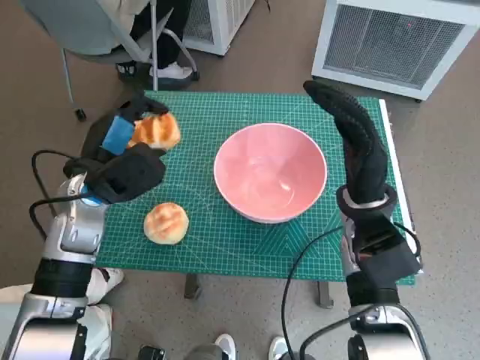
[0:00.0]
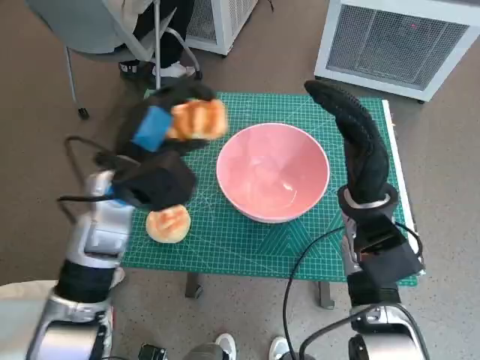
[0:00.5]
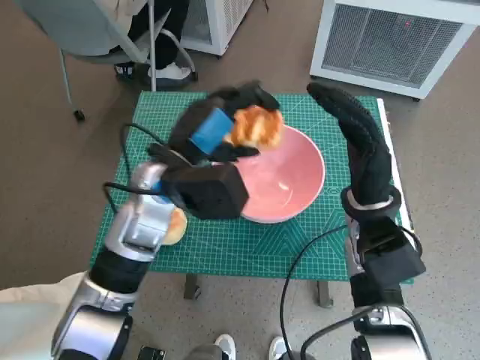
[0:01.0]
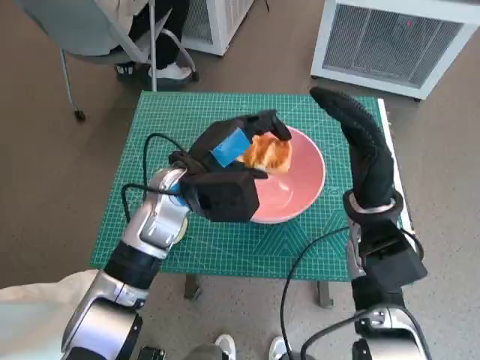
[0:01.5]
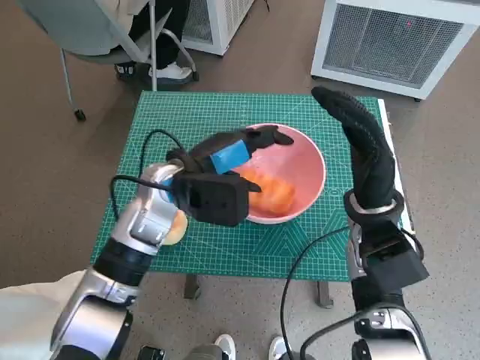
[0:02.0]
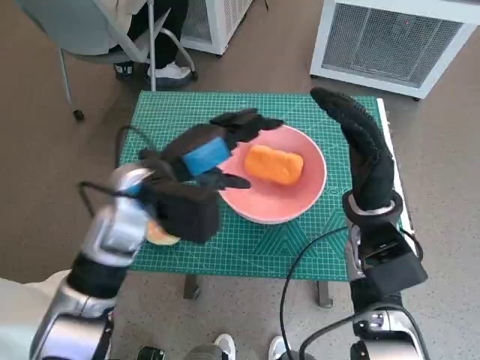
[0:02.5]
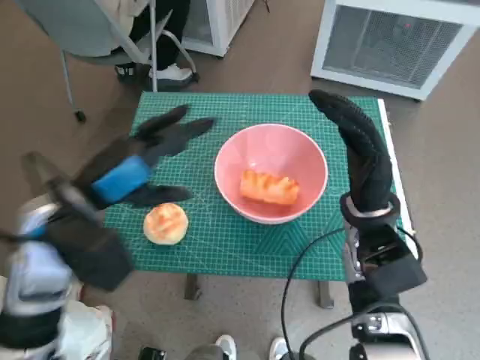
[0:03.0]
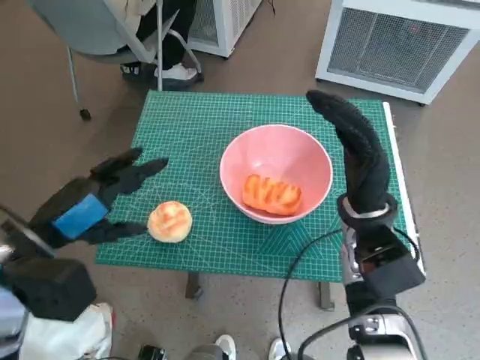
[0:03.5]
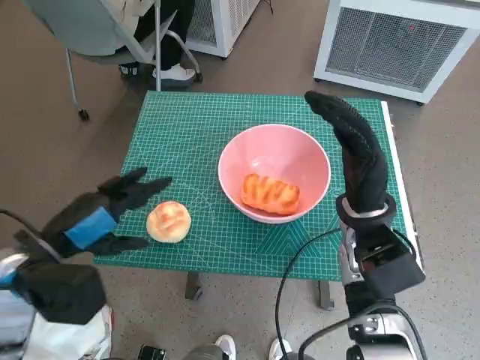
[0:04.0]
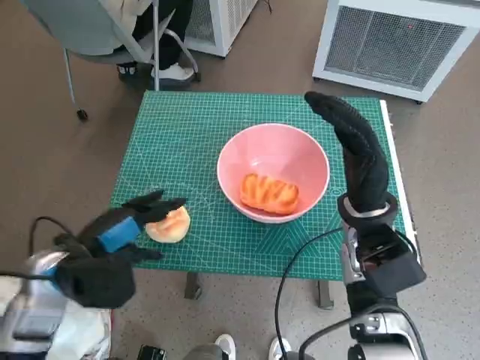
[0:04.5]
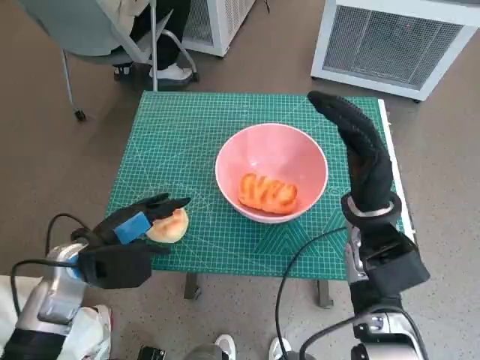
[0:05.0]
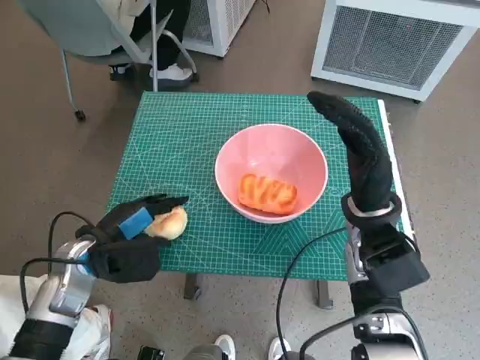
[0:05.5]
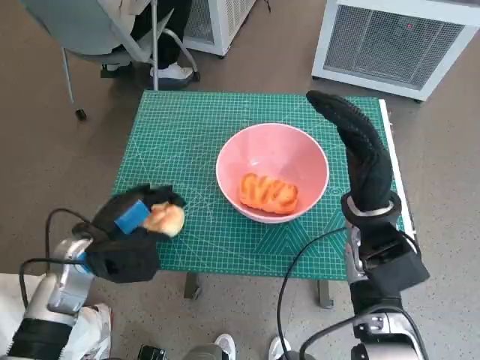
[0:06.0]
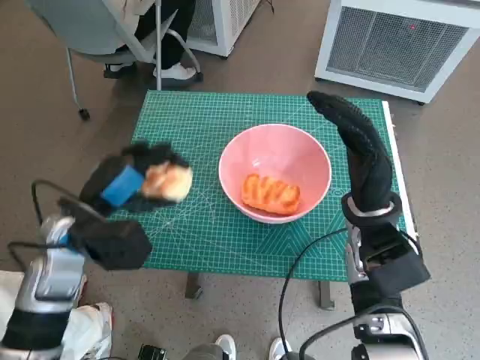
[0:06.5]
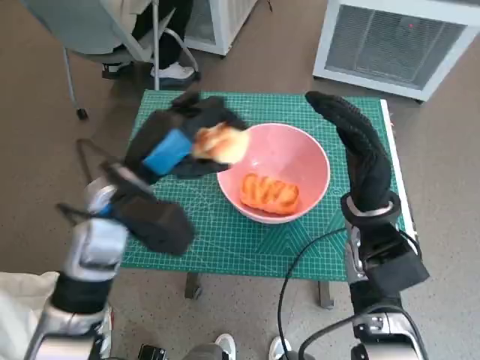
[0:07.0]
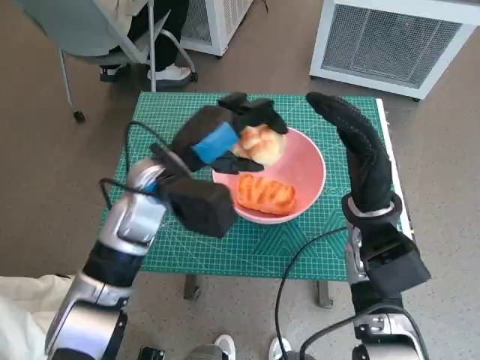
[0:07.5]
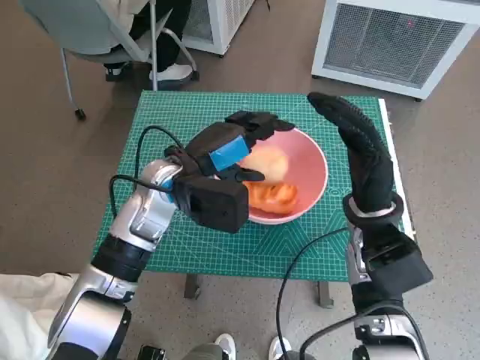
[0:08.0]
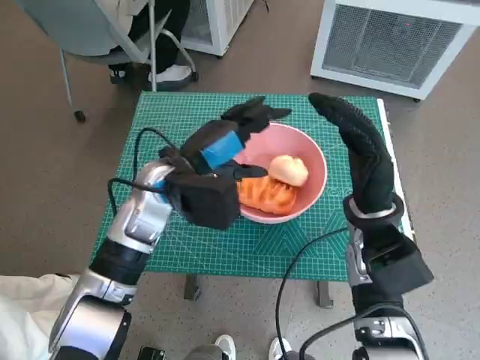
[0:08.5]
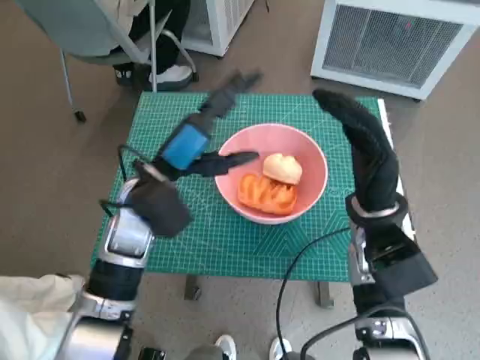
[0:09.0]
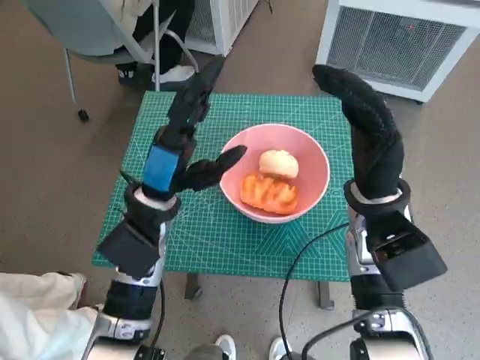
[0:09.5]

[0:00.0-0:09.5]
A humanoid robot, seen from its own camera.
Task of the whole recording: Push the bowl to the center of the table and put the bread into the bowl.
Step, 0:00.0 to 0:02.0: Place the long bread in pink bowl with left hand.
Step, 0:03.0 to 0:05.5: Grasp the round bread with left hand.
Step, 0:06.0 to 0:08.5: Place the round bread in pink bowl with left hand.
0:00.0 to 0:02.0: The left hand shifts some 10 cm to the right.
0:02.0 to 0:04.0: The left hand travels to the left and backward by roughly 20 cm.
0:04.0 to 0:05.5: The left hand shifts roughly 10 cm downward.
0:05.5 to 0:07.5: The left hand travels to the right, upward and forward by about 15 cm.

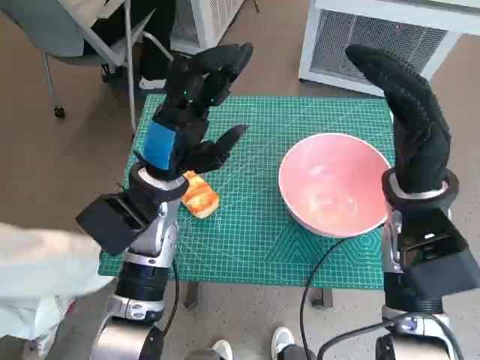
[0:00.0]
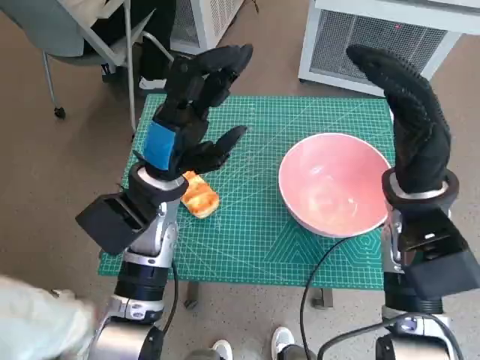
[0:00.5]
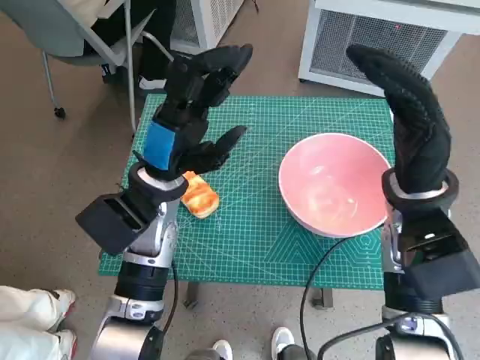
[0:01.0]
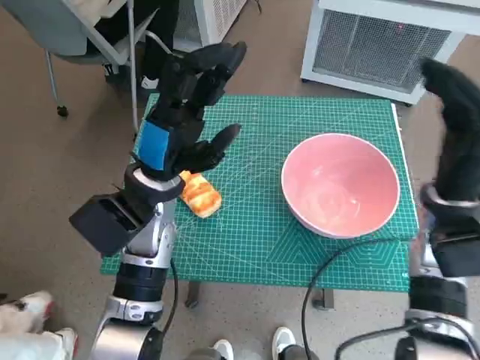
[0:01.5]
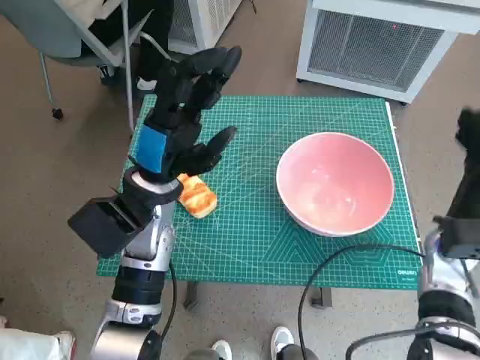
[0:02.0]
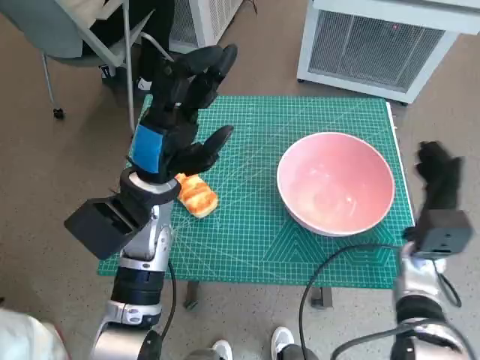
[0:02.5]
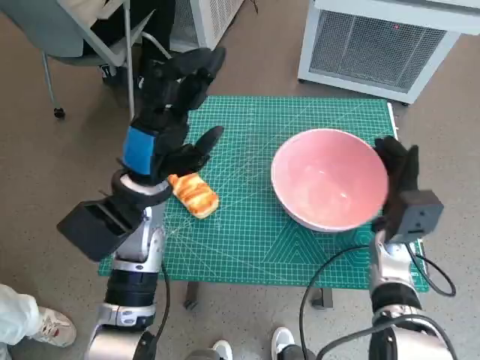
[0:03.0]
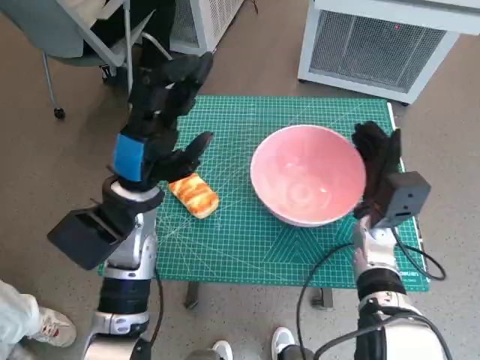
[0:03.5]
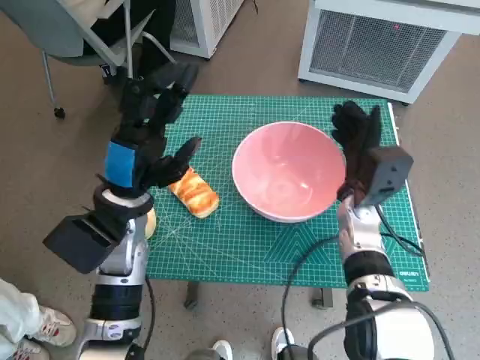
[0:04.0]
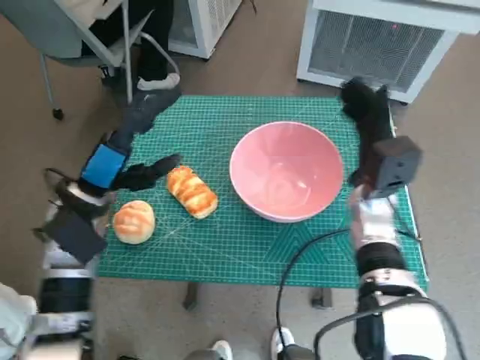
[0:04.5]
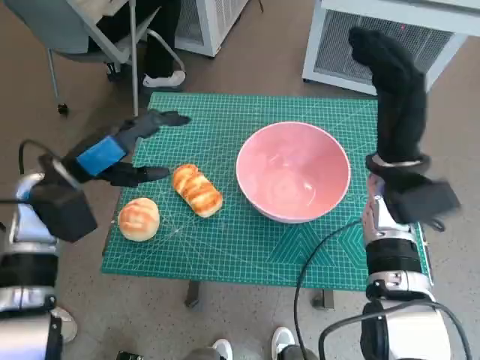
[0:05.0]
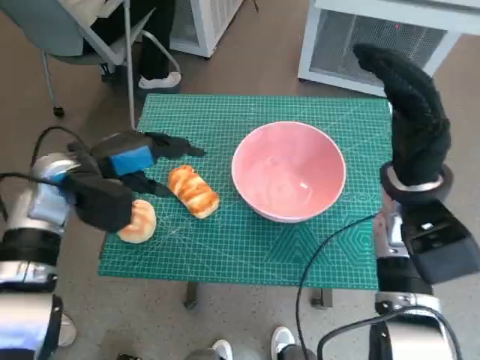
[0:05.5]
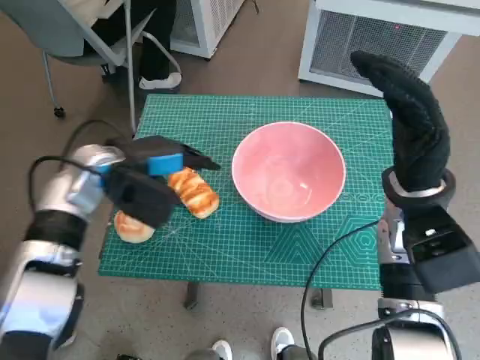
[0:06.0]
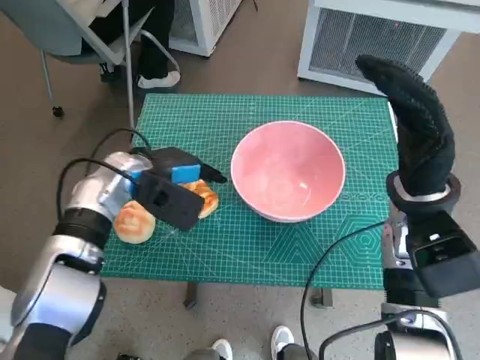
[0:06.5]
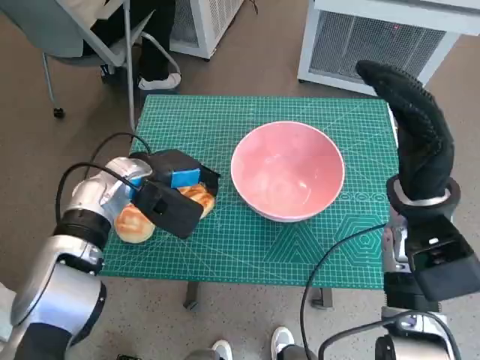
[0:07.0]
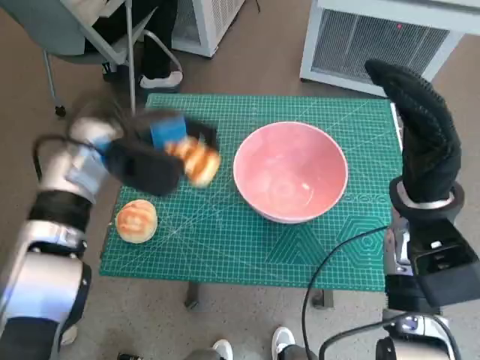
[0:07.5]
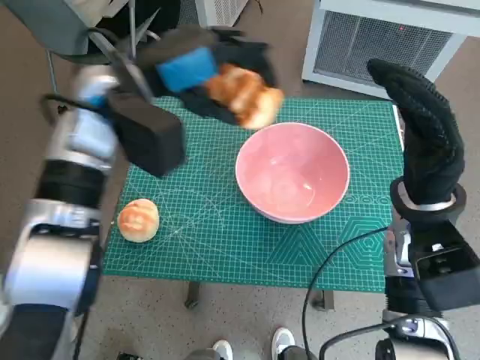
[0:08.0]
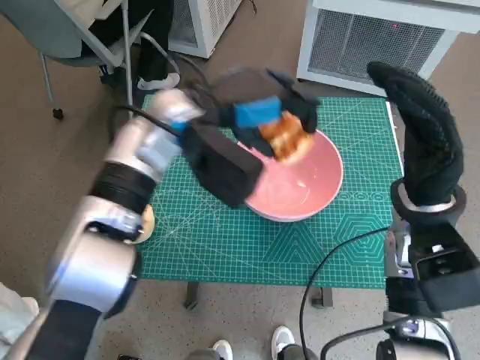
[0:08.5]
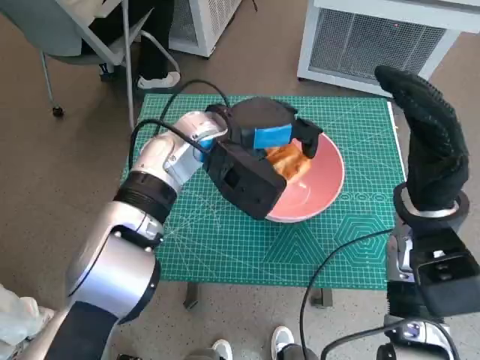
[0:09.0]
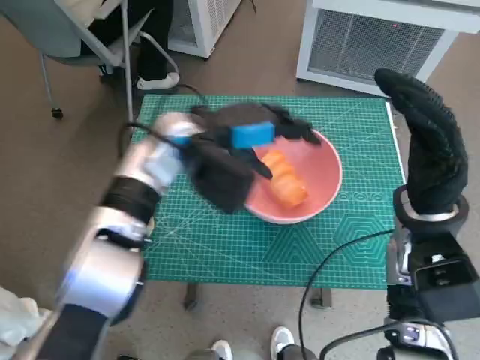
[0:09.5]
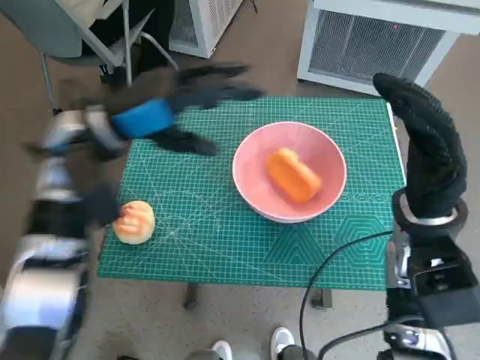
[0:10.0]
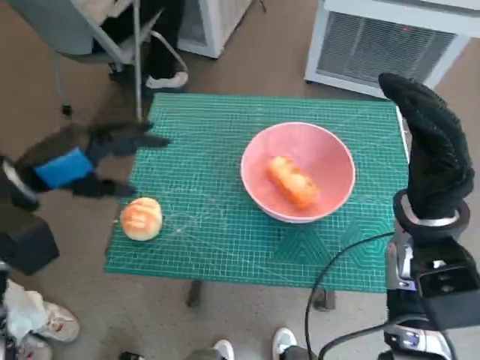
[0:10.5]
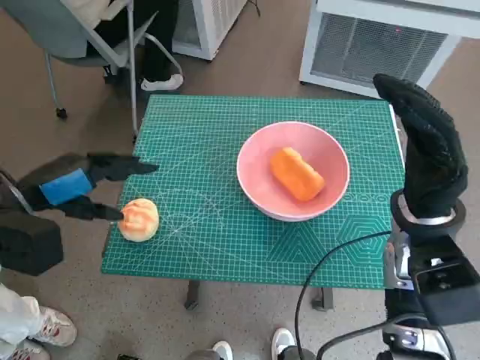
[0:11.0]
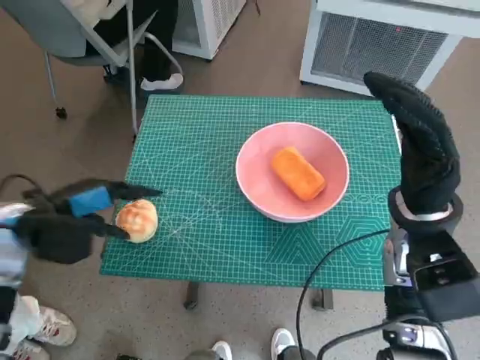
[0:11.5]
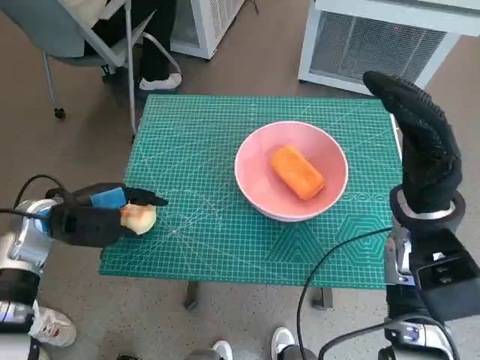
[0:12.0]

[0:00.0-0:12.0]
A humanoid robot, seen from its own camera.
Task of the whole recording: Push the bowl to the center of the table and put the bread into the bowl.
Step, 0:00.0 to 0:04.0: Move the pink bowl to the center of table with right hand.
Step, 0:04.5 to 0:07.0: Grasp the long bread with left hand.
Step, 0:07.5 to 0:09.5: Place the long bread in pink bowl with left hand.
0:02.0 to 0:04.0: The right hand heads to the left, covering roughly 10 cm.
0:04.0 to 0:06.0: The right hand moves upward, about 10 cm. The left hand heads forward, covering approximately 5 cm.
0:06.0 to 0:08.0: The left hand travels upward by approximately 10 cm.
0:08.0 to 0:10.0: The left hand reaches about 10 cm to the right, then returns.
0:10.0 to 0:12.0: The left hand shifts about 15 cm downward and to the left.

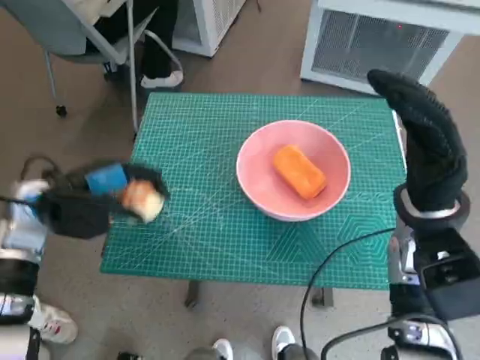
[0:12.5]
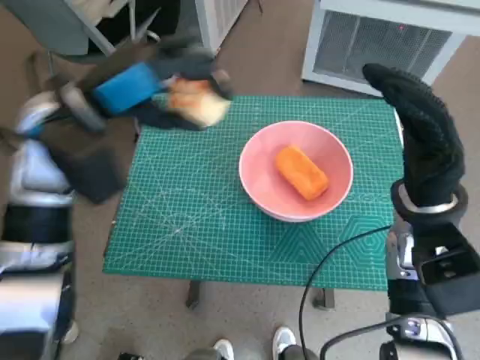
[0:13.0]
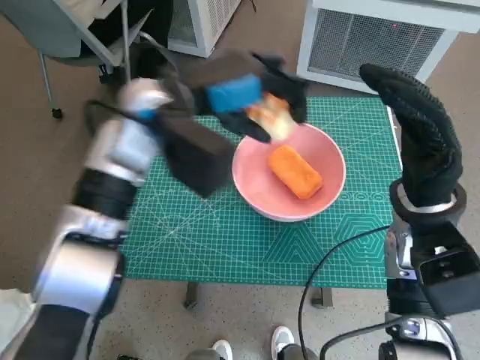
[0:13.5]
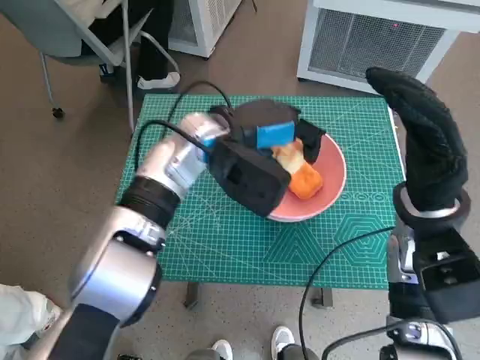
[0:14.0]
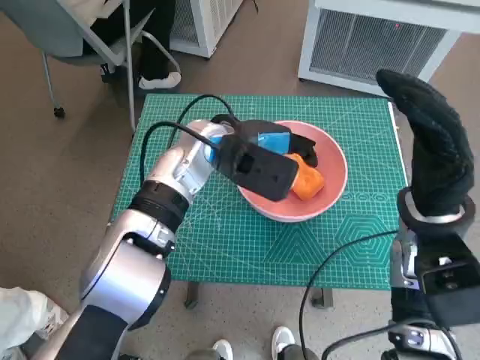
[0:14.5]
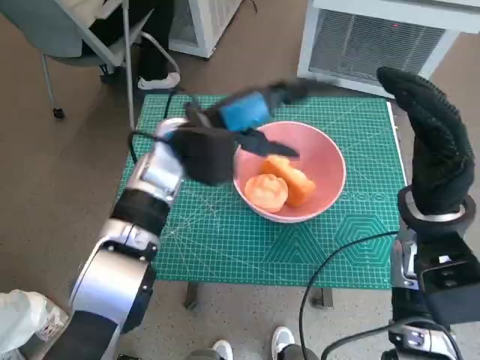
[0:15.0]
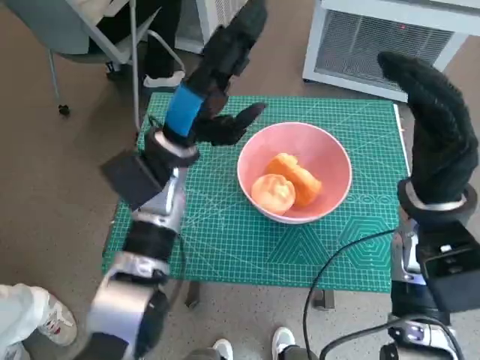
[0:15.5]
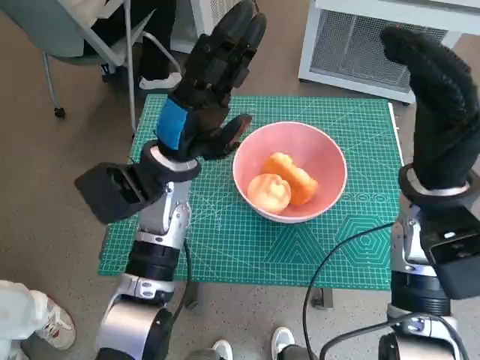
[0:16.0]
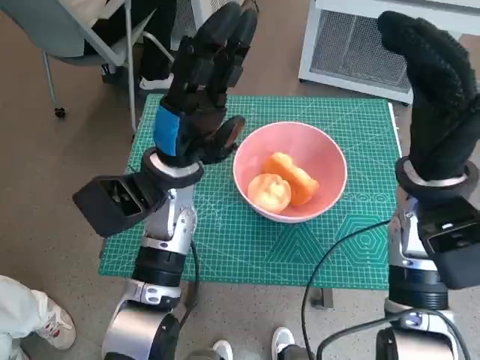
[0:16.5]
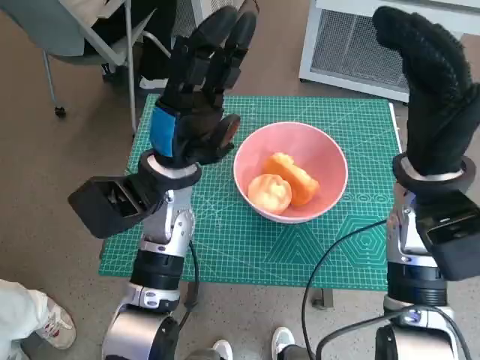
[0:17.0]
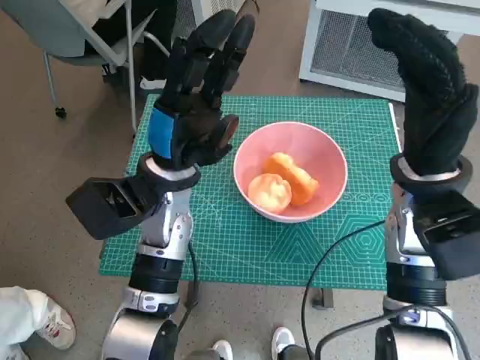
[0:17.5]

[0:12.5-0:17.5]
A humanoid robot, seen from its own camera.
Task of the whole recording: Push the bowl to the center of the table and put the bread into the bowl.
Step, 0:12.5 to 0:14.5: Place the round bread in pink bowl with left hand.
0:12.5 to 0:15.0: The left hand travels to the right by about 20 cm.
0:15.0 to 0:17.5: The left hand travels backward by about 5 cm.
